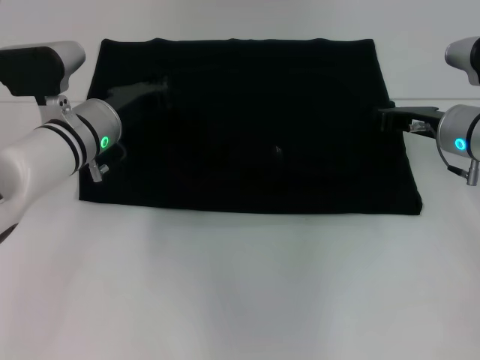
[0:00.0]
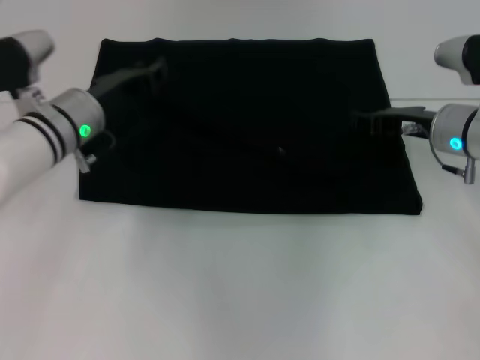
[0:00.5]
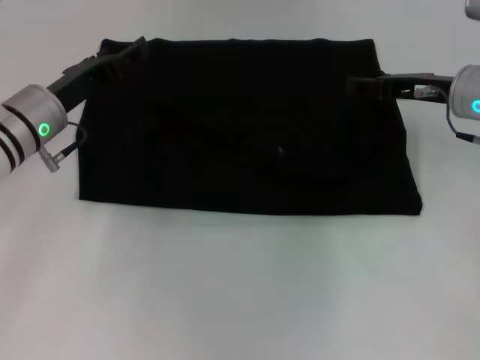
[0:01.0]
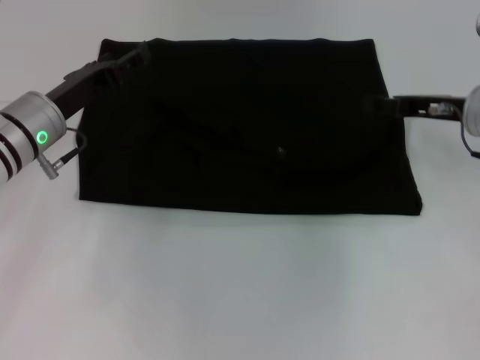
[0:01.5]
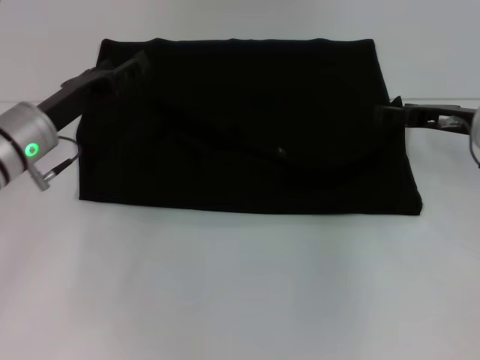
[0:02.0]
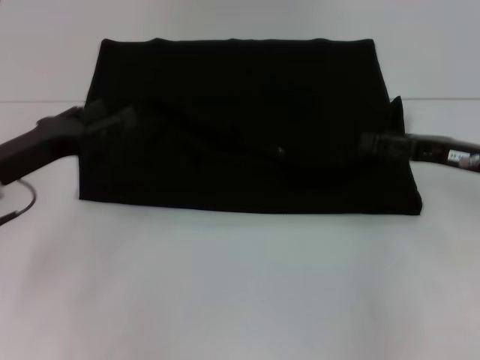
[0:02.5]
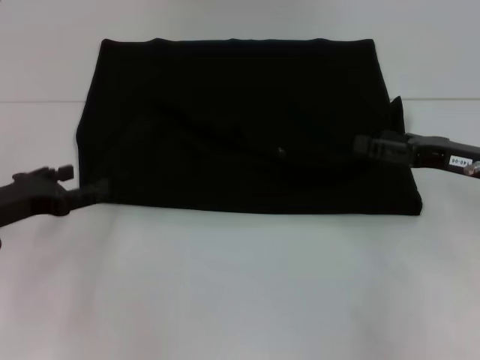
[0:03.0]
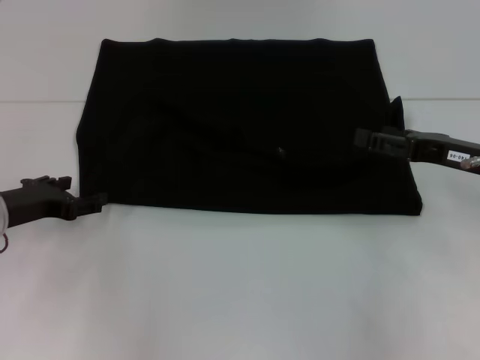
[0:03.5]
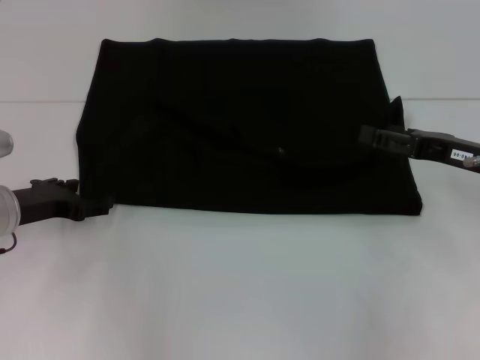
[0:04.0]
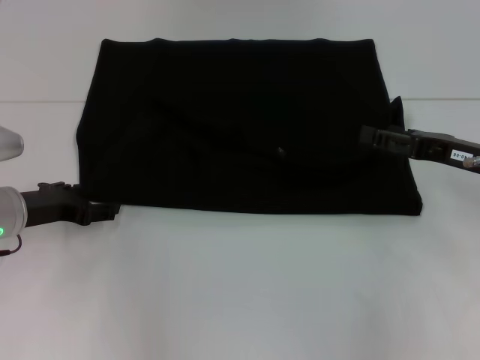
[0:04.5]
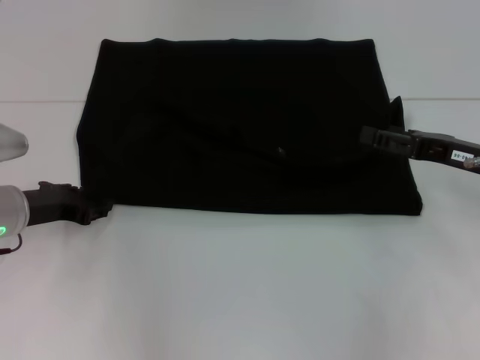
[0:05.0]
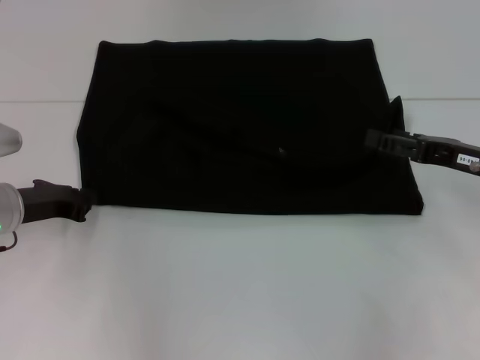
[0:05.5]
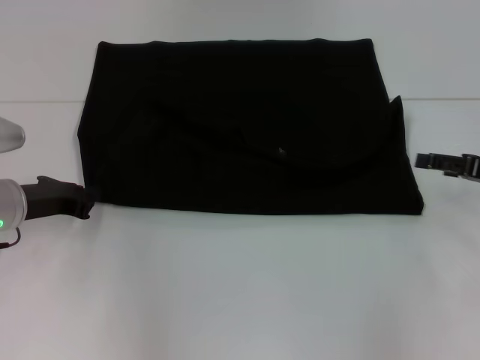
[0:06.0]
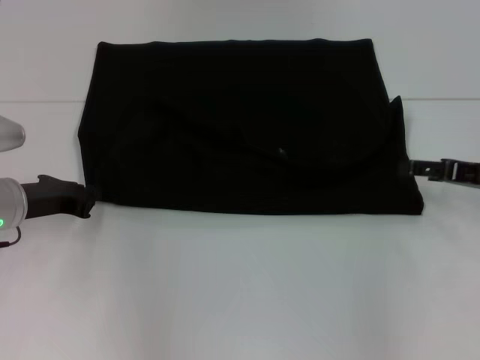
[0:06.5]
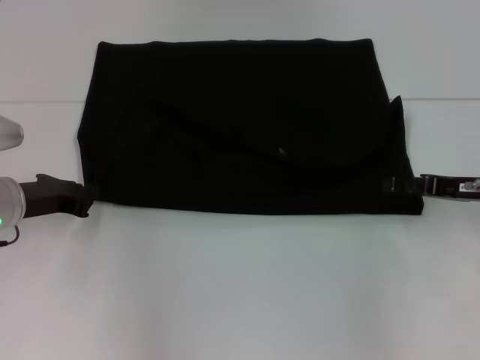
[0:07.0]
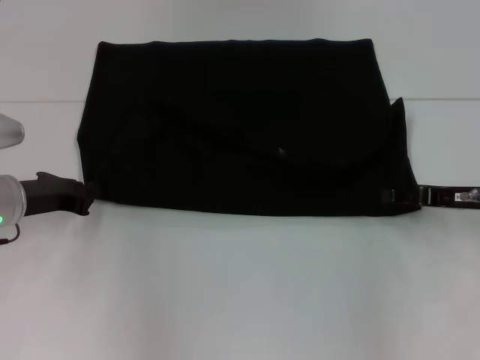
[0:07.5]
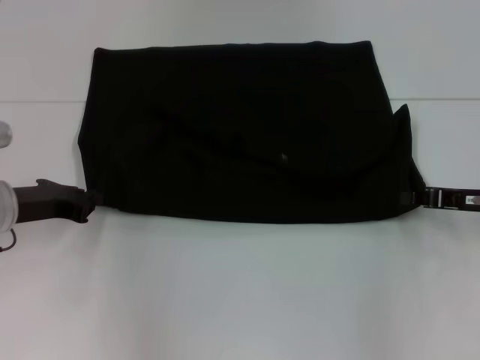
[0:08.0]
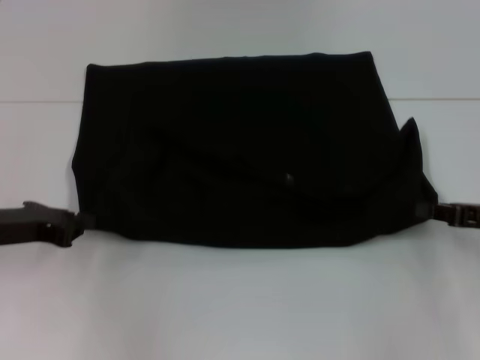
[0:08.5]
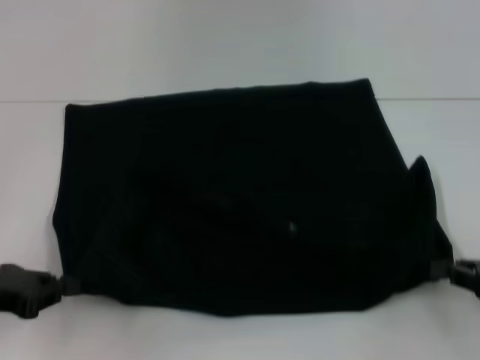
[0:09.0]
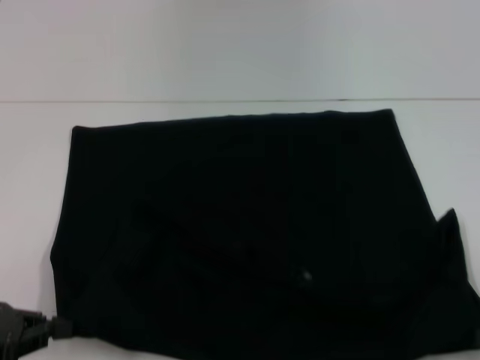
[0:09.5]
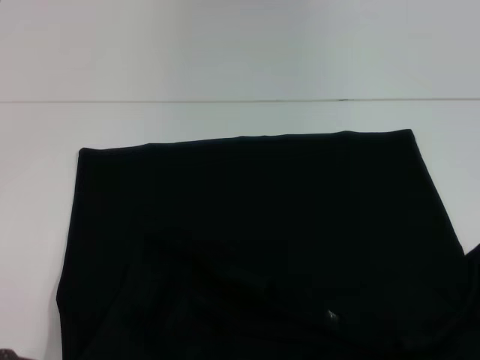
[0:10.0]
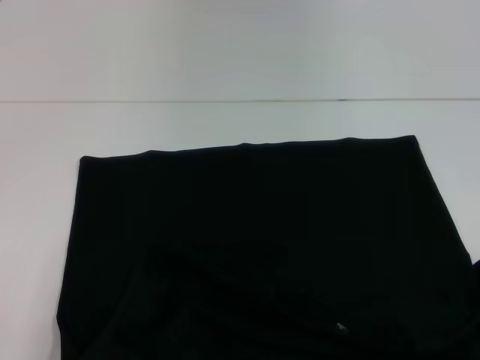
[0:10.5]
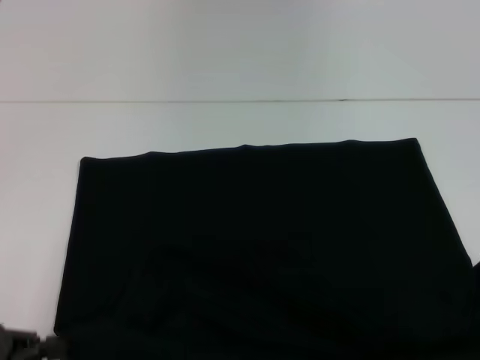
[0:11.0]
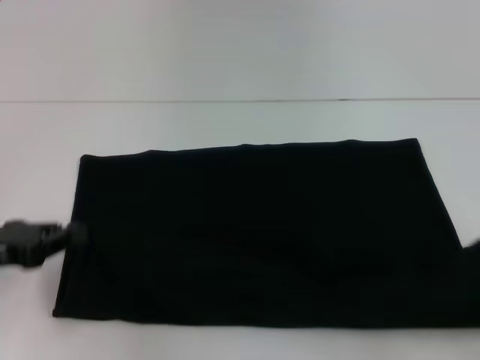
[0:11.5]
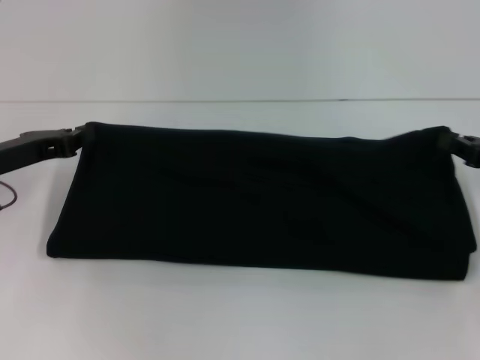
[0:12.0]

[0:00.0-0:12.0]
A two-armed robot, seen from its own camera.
Step, 0:01.0 to 0:09.5: Pull the clothes with your left hand.
Step, 0:01.0 to 0:09.5: Pull the clothes with your right hand.
0:00.0 to 0:02.0: The right gripper opens its fingers. Meanwhile the left gripper shifts some 5 cm to the left, and opens its fingers.
0:02.0 to 0:04.0: The right gripper travels backward by about 5 cm, while the left gripper changes place by some 5 cm.
0:04.0 to 0:06.0: The left gripper closes its fingers. Meanwhile the right gripper shifts about 5 cm to the right.
0:06.0 to 0:08.0: The right gripper closes.
0:08.0 to 0:10.0: The right gripper travels backward by about 25 cm; the left gripper is displaced backward by some 15 cm.
0:10.0 to 0:12.0: The grippers both shift forward by about 20 cm.

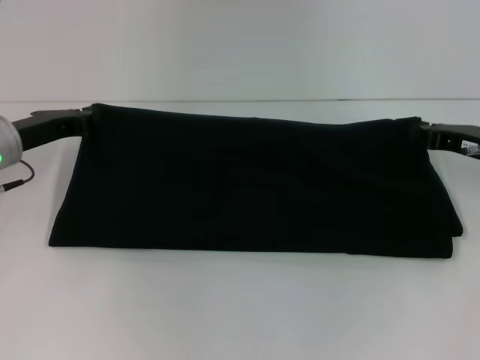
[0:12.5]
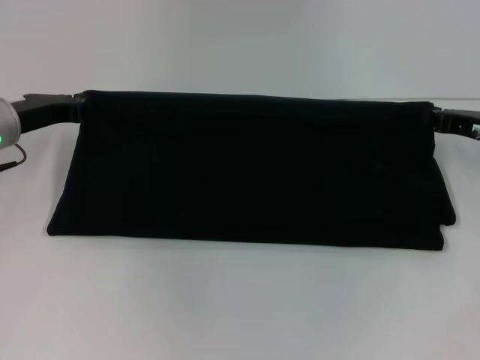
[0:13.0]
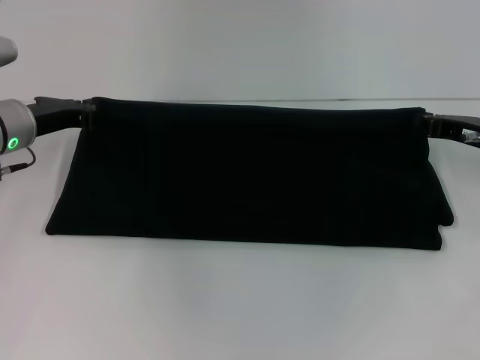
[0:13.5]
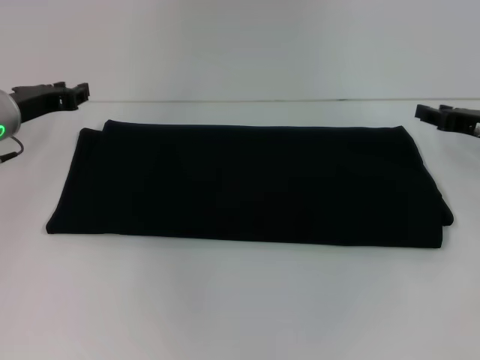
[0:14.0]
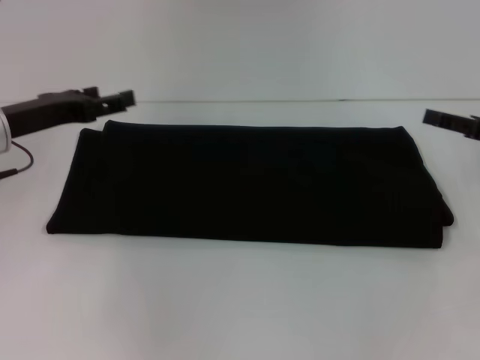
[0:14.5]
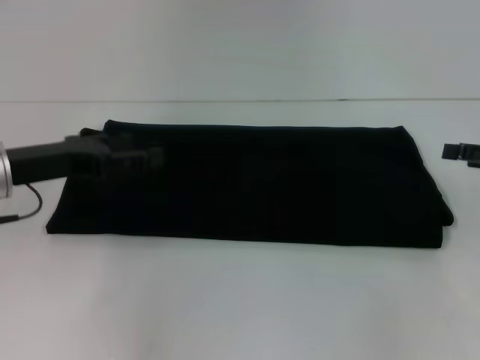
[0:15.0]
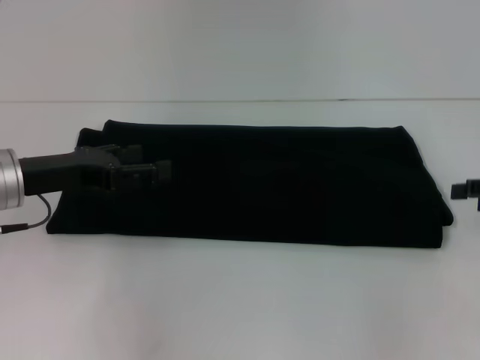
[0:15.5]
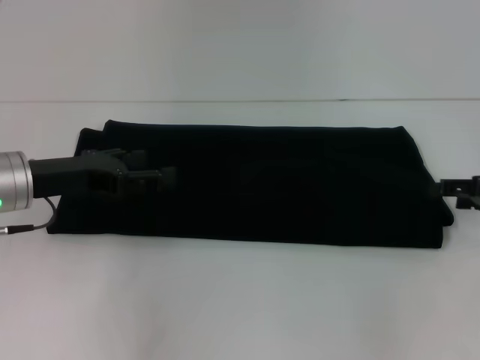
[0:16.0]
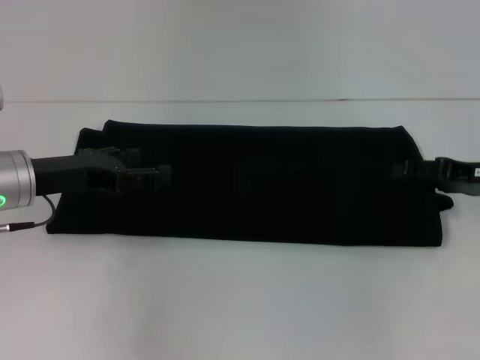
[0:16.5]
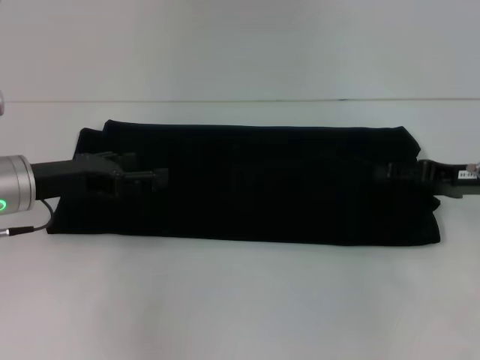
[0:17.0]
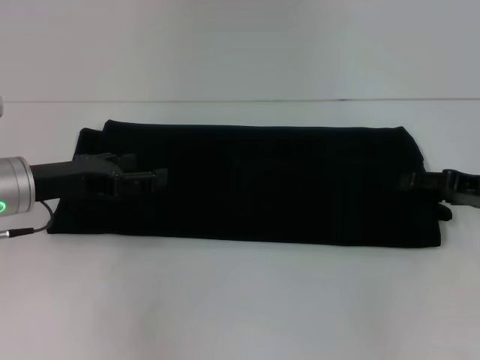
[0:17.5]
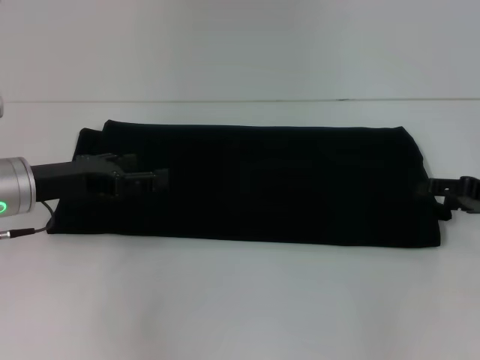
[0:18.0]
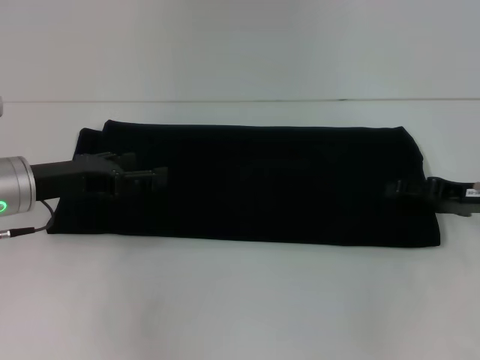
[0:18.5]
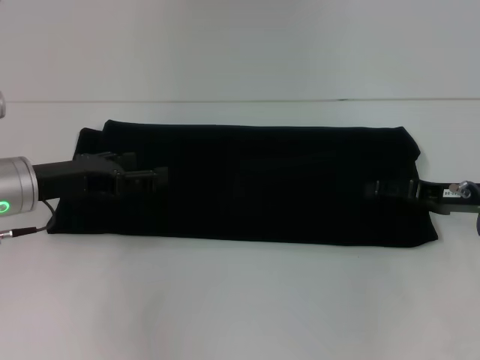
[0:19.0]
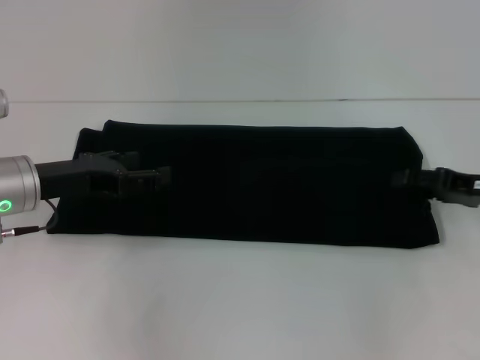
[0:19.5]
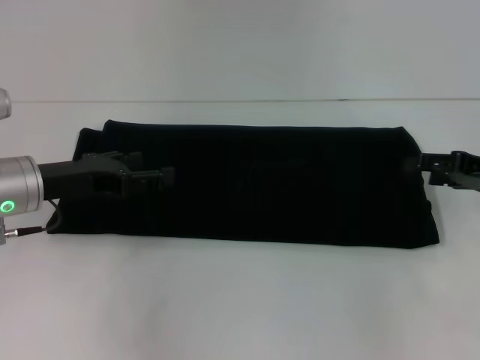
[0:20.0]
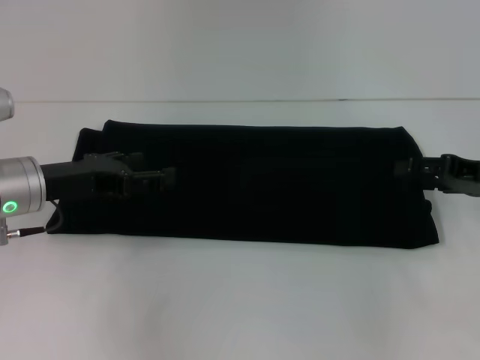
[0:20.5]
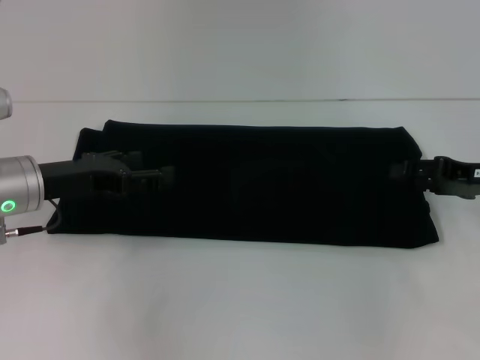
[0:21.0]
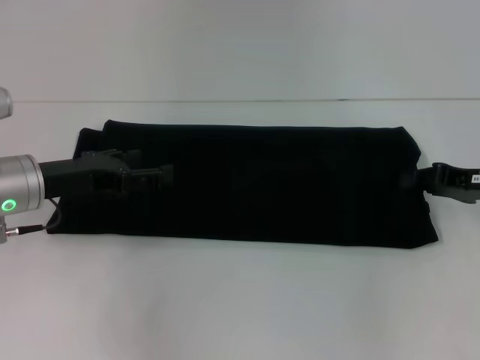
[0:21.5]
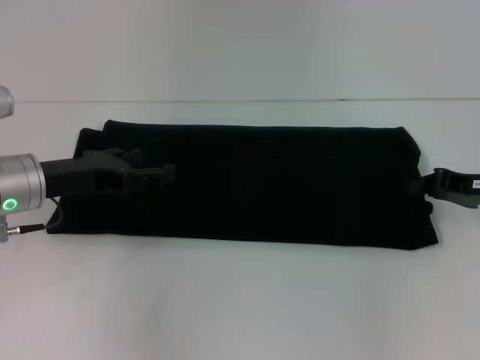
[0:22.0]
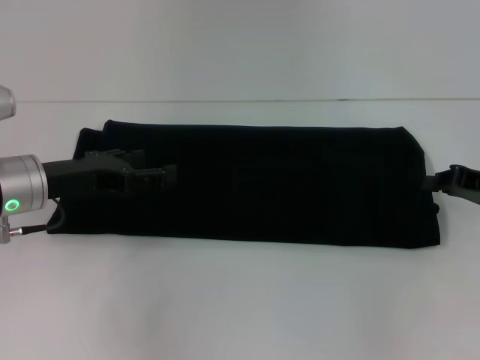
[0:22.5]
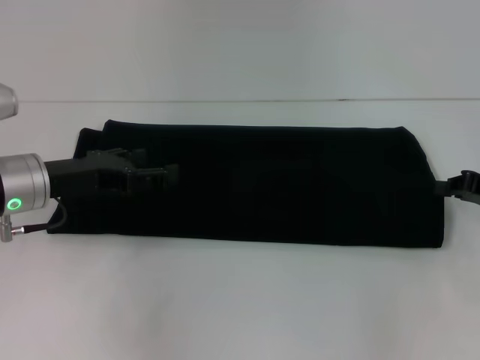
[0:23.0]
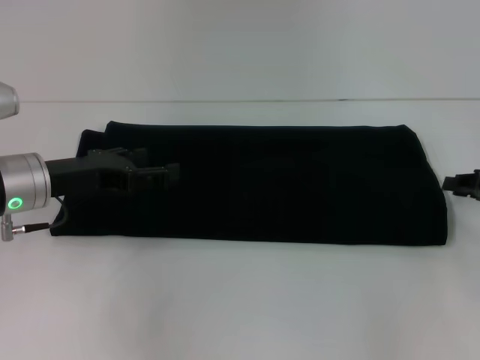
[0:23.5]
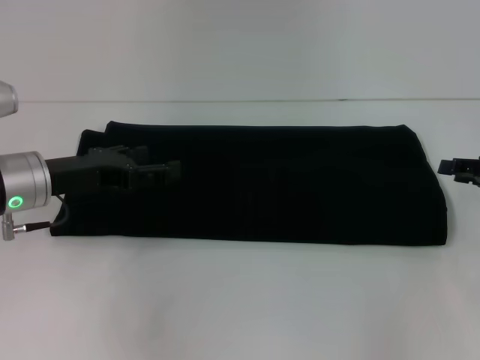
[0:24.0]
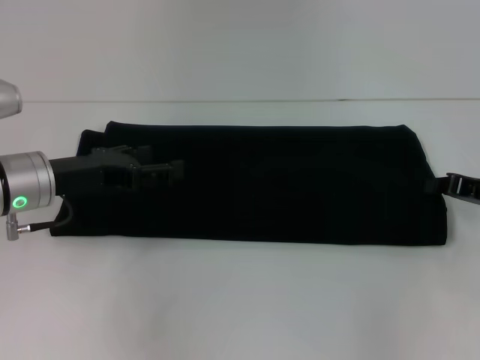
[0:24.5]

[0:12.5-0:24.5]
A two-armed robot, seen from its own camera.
0:12.5 to 0:14.5: The right gripper moves approximately 5 cm, and opens its fingers. The left gripper opens.
0:16.5 to 0:20.5: The grippers make only small movements.
0:20.5 to 0:22.5: The right gripper closes.
0:22.5 to 0:24.5: The right gripper opens and closes again.

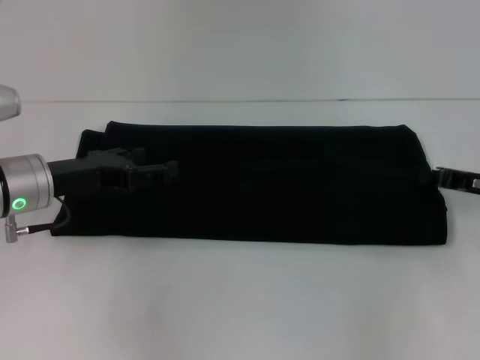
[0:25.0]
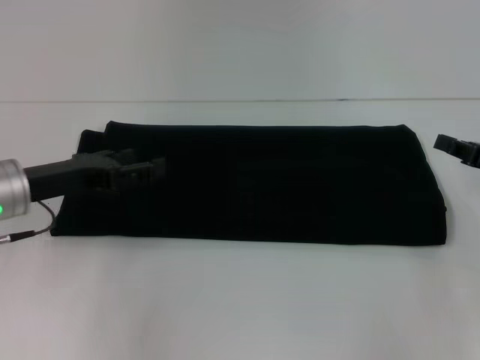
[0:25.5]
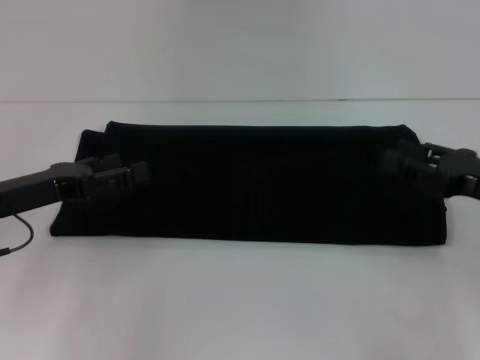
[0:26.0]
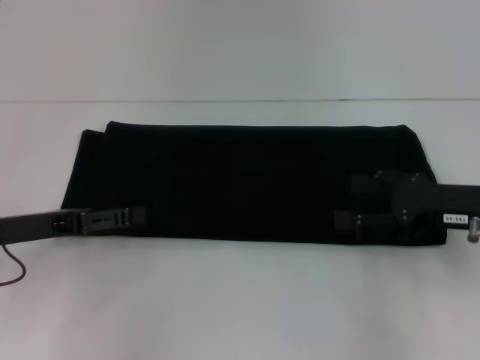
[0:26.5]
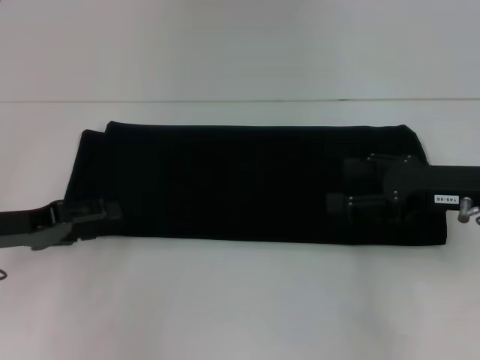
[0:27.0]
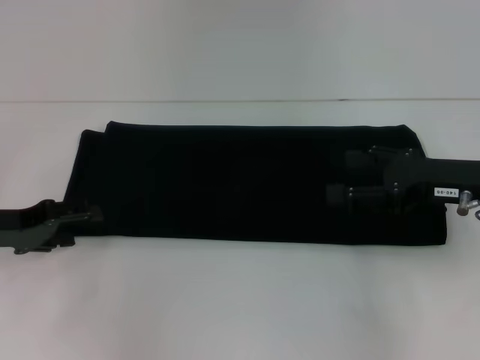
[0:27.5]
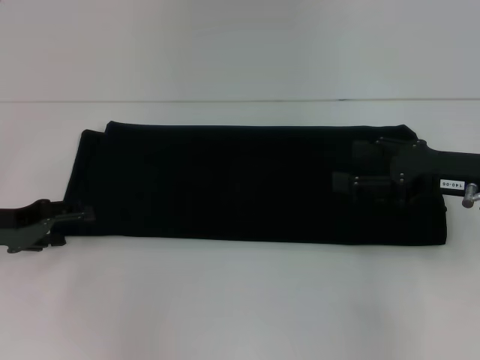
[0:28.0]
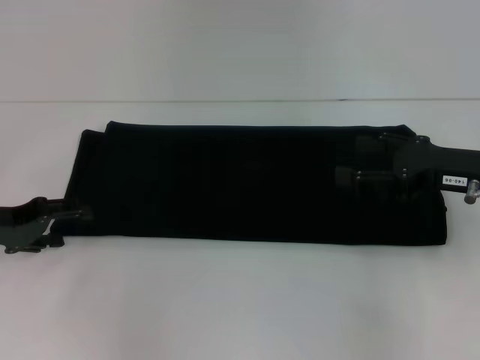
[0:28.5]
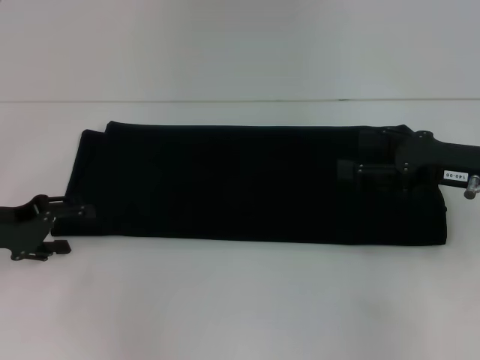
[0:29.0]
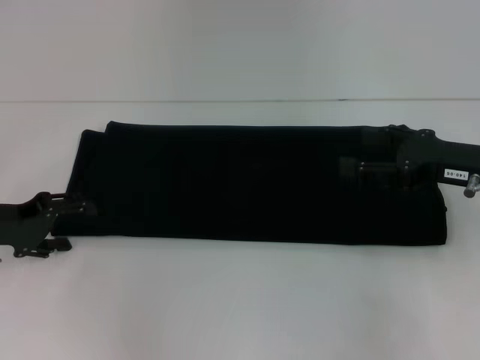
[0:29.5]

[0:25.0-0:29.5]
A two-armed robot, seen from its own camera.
0:25.0 to 0:27.0: Both grippers travel together to the left, roughly 5 cm. The right gripper opens.
